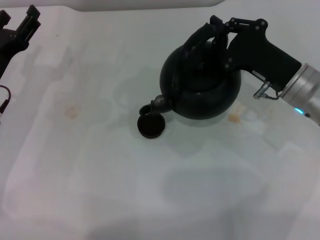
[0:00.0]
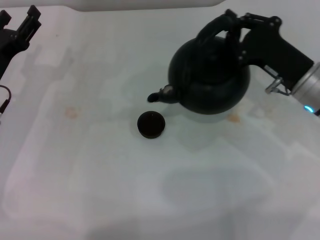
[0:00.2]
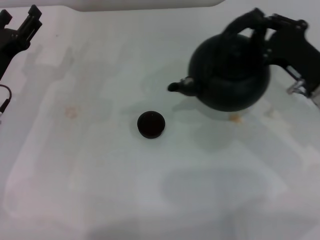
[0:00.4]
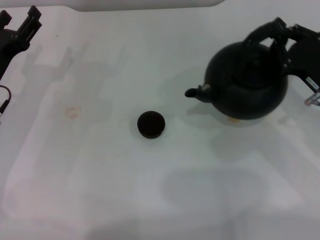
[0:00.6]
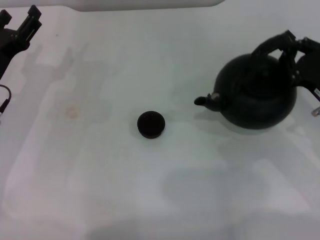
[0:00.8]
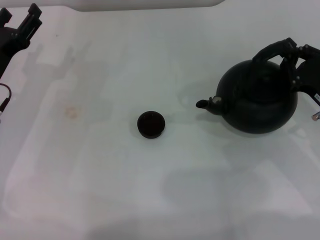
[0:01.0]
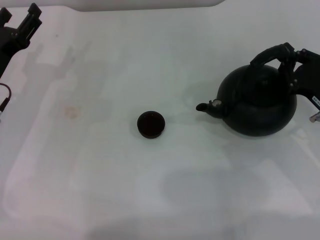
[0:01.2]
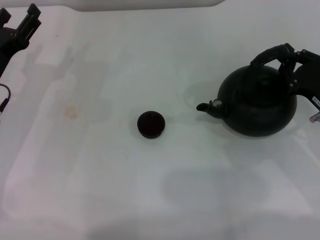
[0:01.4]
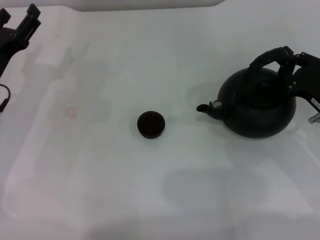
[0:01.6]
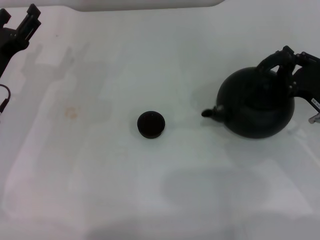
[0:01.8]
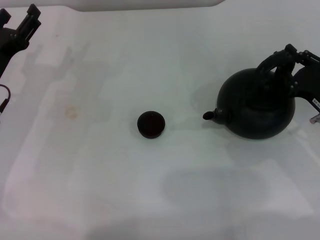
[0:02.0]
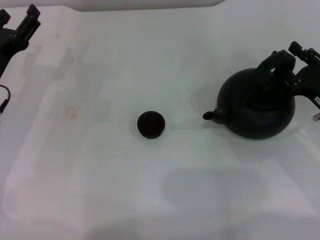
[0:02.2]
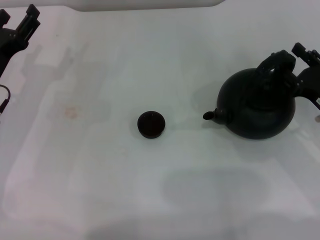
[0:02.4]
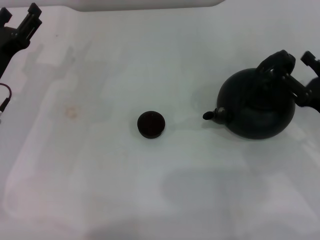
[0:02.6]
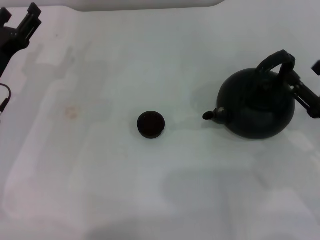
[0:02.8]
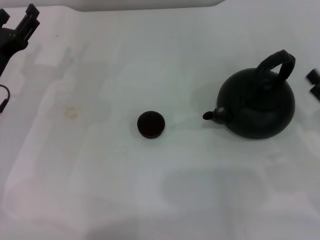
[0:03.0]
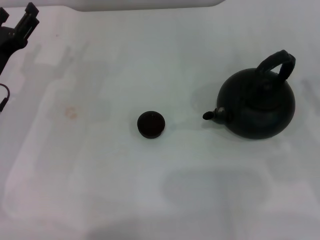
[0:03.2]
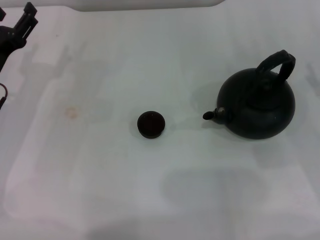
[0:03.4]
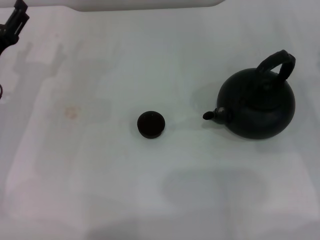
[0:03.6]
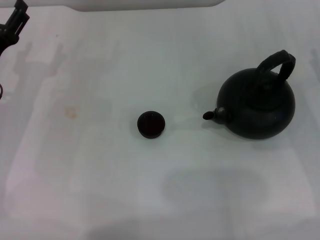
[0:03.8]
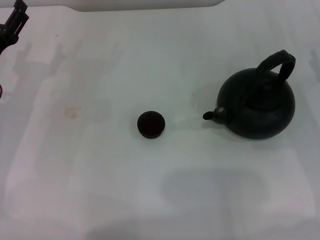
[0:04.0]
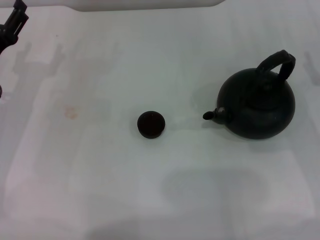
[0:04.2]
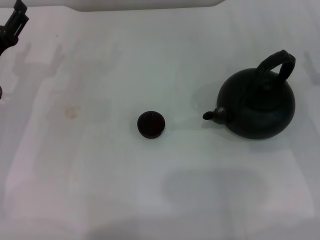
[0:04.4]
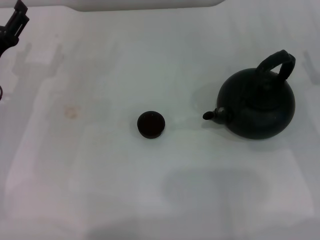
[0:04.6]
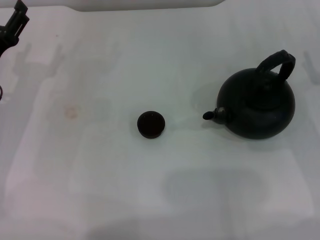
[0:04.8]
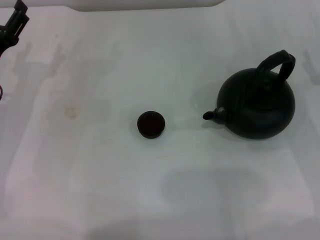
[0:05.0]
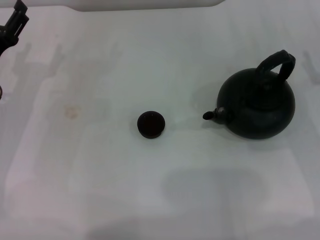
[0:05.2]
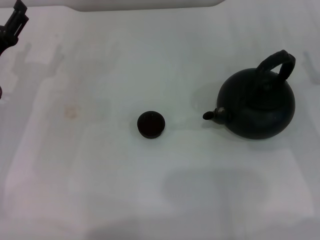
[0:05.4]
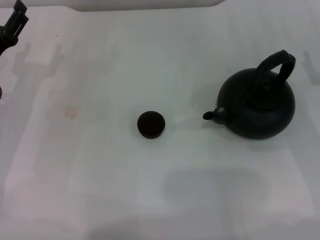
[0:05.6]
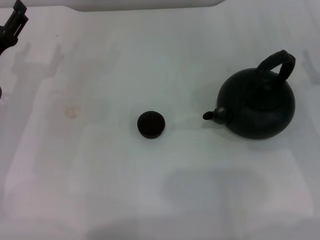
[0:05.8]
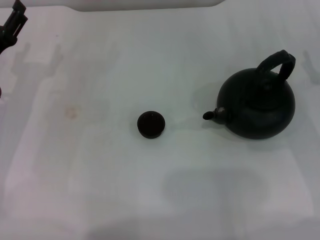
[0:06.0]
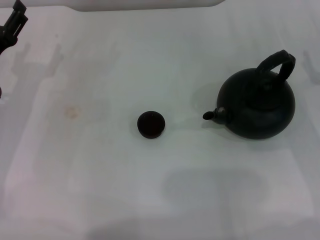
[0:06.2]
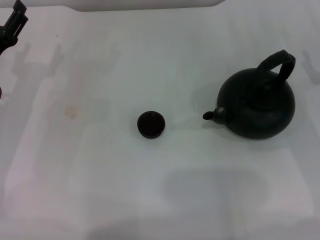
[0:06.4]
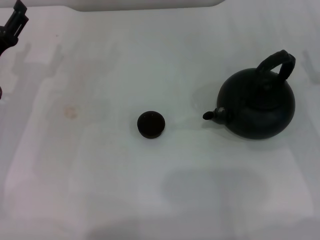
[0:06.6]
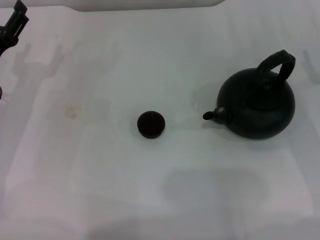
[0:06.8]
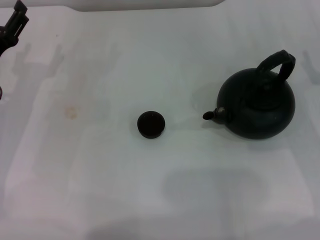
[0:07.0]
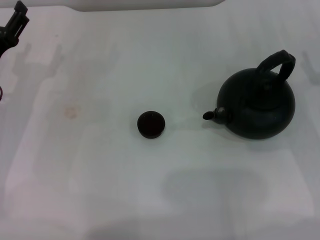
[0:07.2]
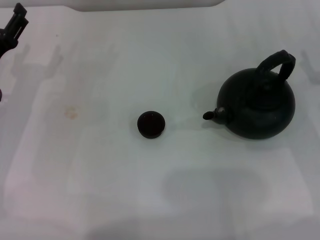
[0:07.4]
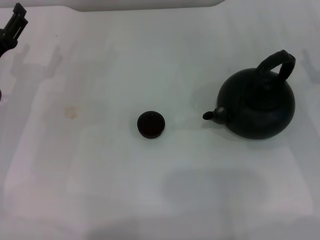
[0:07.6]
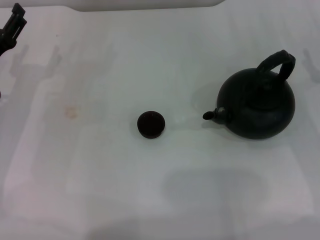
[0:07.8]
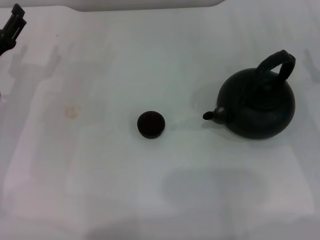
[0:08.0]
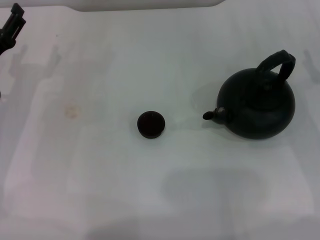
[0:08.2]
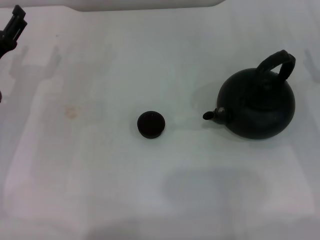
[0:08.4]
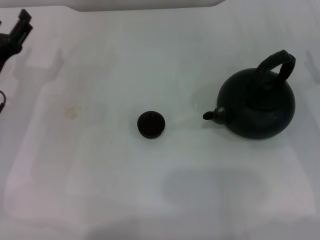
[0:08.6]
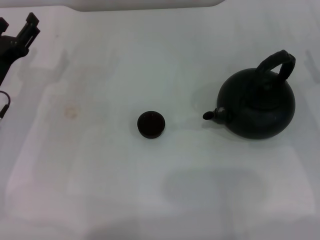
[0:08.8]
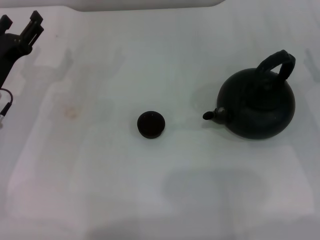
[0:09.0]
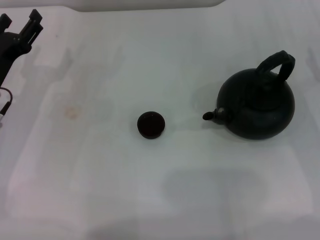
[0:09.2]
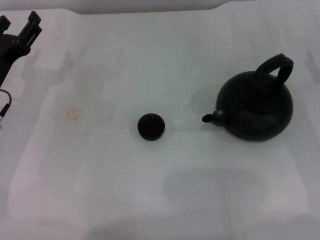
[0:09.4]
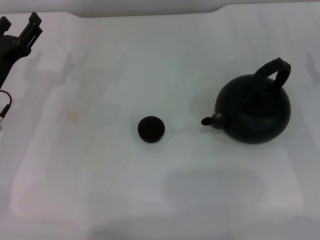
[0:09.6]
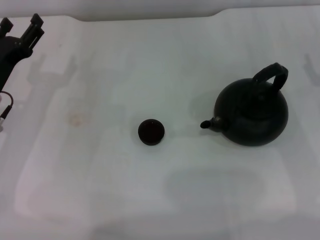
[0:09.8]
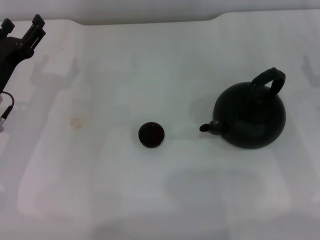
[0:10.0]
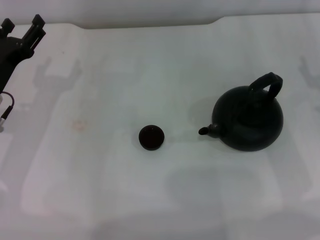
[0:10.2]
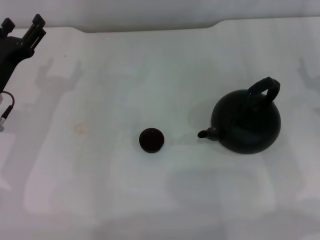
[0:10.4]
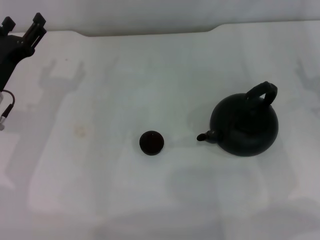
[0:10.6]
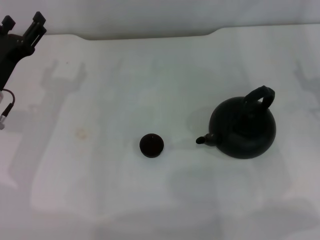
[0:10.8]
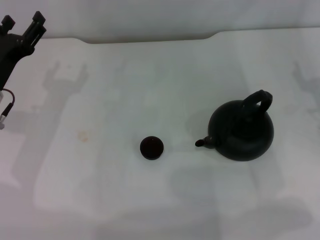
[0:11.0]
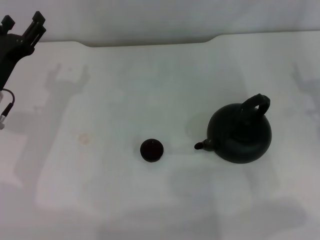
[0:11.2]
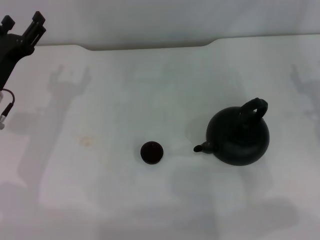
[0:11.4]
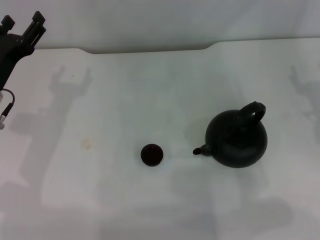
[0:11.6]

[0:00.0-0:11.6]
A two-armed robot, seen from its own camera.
Task of the whole recording: Grasp the handle of the teapot with one hand and pour tea into the teacup.
Step, 0:00.4 to 0:02.8: Put down the teapot with the right gripper.
0:00.0 to 0:01.4: The right gripper shifts about 10 cm to the right.
0:01.4 to 0:02.8: The right gripper moves backward, some 5 cm, and opens its fingers.
0:02.8 to 0:04.4: The right gripper shifts roughly 5 cm forward.
0:04.4 to 0:08.8: Both grippers stay put.
0:08.8 to 0:11.6: Neither gripper changes place.
